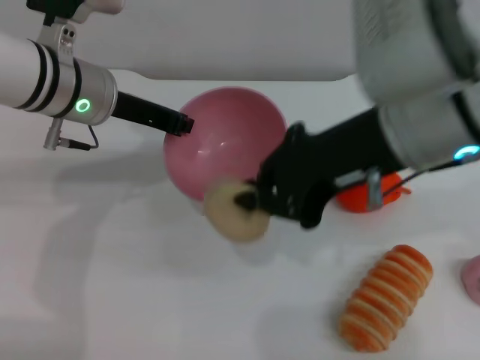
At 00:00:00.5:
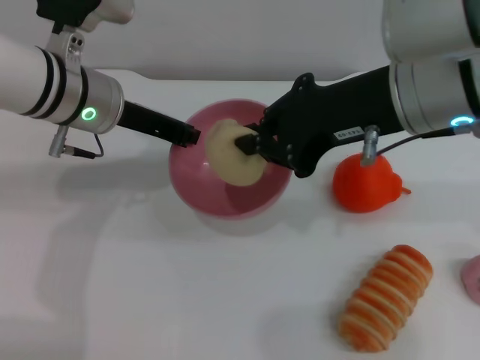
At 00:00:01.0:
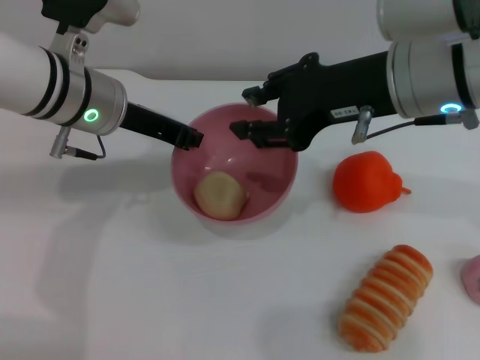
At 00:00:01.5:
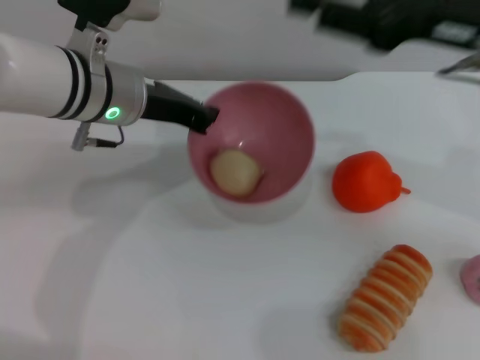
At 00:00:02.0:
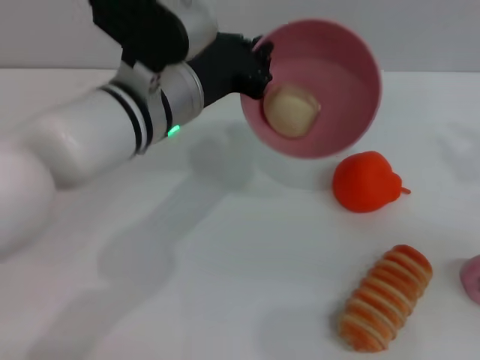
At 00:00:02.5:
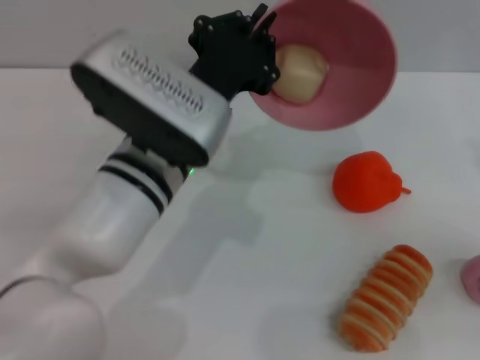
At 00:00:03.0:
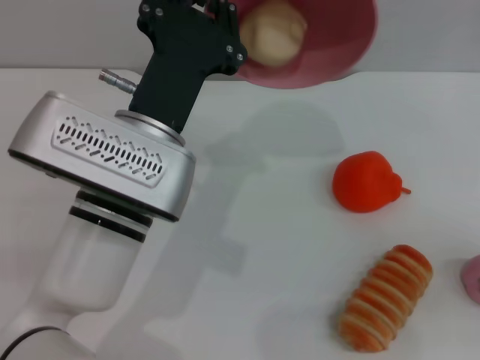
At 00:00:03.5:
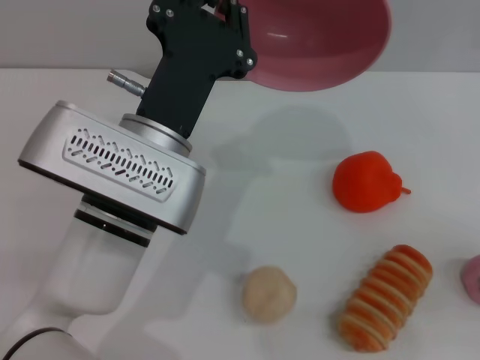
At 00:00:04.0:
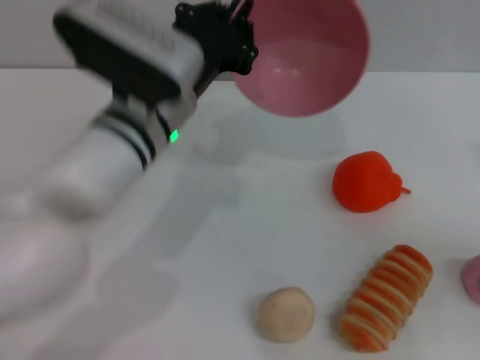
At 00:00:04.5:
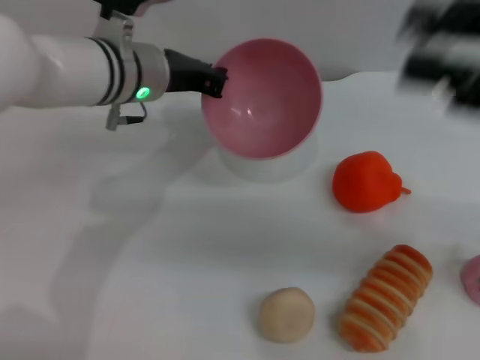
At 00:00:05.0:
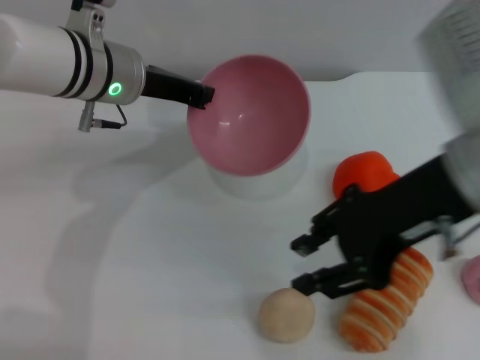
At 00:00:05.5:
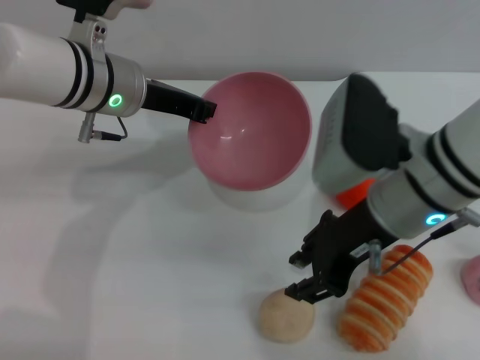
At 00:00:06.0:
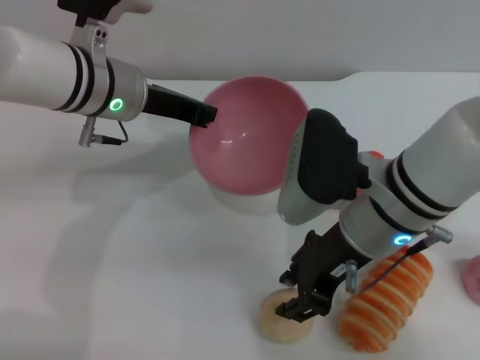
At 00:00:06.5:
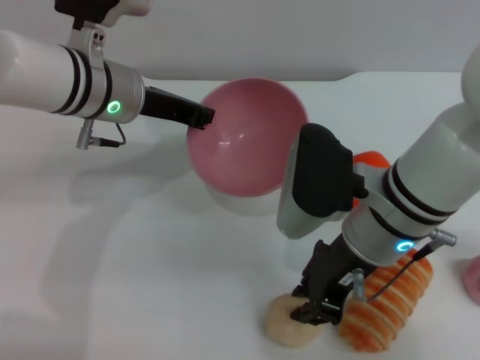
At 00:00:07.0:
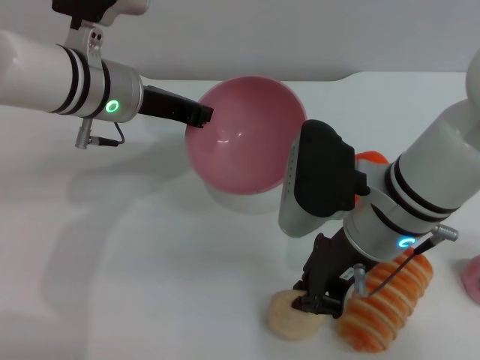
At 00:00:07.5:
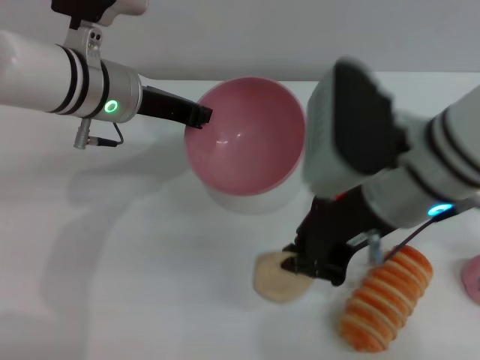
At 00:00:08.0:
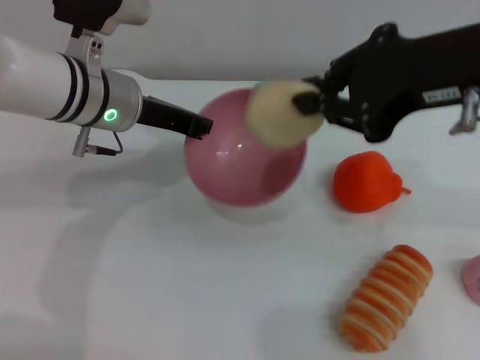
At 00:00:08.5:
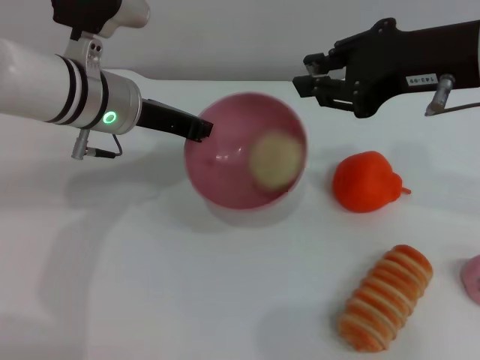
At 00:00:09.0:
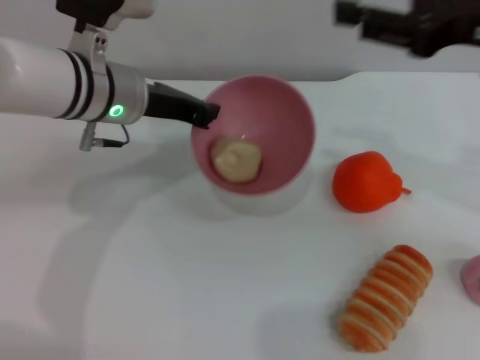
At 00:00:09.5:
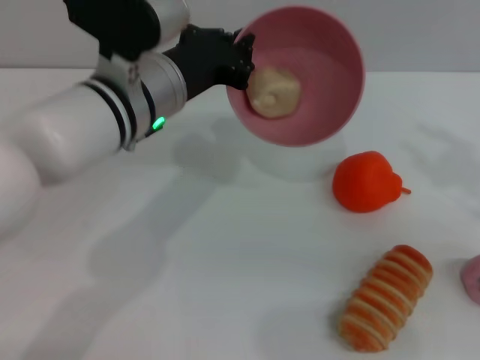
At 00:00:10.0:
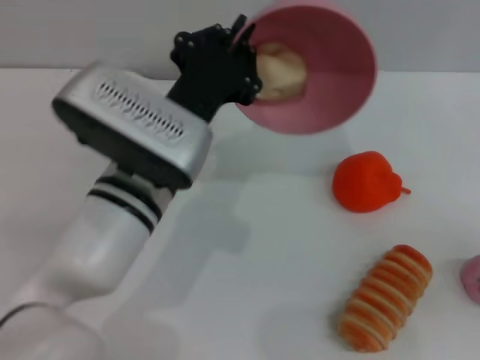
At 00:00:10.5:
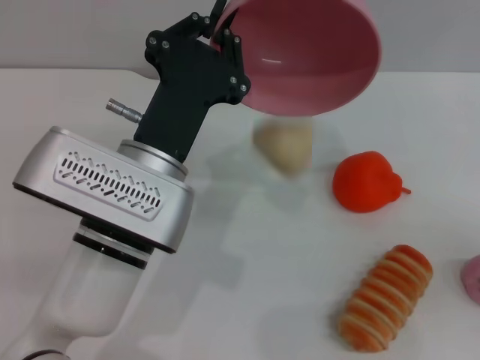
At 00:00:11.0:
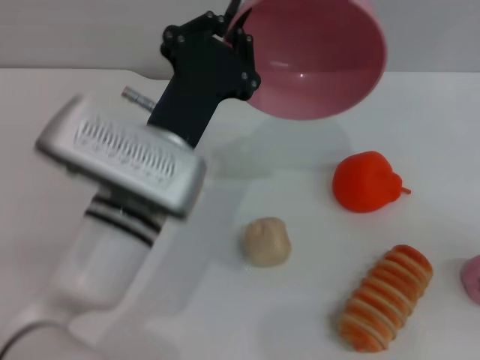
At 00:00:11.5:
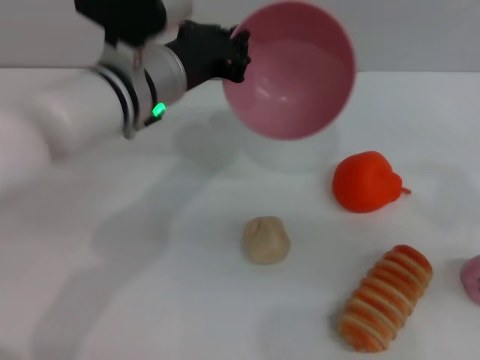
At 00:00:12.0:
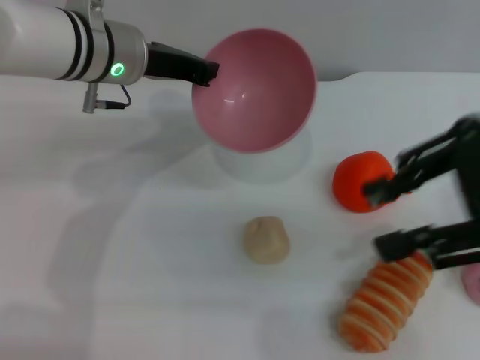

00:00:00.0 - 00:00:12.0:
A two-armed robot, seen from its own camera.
Task of the whole recording: put the egg yolk pastry into the pink bowl and pour it out repeatedly.
Step, 00:00:00.0 - 00:00:01.0: Place the egg yolk pastry into the bowl.
Step, 00:00:01.5 - 00:00:03.5: Pour the egg yolk pastry out of bowl.
Step, 00:00:04.0 - 00:00:07.5: Pick up the egg yolk pastry with the right gripper.
Step, 00:00:08.0 - 00:00:08.5: Place the egg yolk pastry into the bowl.
Step, 00:00:09.0 - 00:00:10.5: Pour the egg yolk pastry out of bowl.
00:00:00.0 - 00:00:02.0: The left gripper travels to the right and backward by some 10 cm, while the right gripper travels to the right by approximately 20 cm, and opens.
00:00:02.0 - 00:00:04.0: The left gripper reaches some 10 cm backward, then returns.
00:00:04.0 - 00:00:06.0: The left gripper moves forward and to the left, about 10 cm, while the right gripper travels to the left by approximately 25 cm.
00:00:06.0 - 00:00:08.0: The right gripper travels upward and to the right by some 15 cm, and closes its fingers.
00:00:08.0 - 00:00:10.0: The left gripper shifts approximately 15 cm backward and to the right; the right gripper heads to the right and downward, covering about 20 cm, and opens its fingers.
00:00:10.0 - 00:00:12.0: The right gripper shifts roughly 15 cm to the left and upward; the left gripper heads forward, to the left and upward, covering some 15 cm.

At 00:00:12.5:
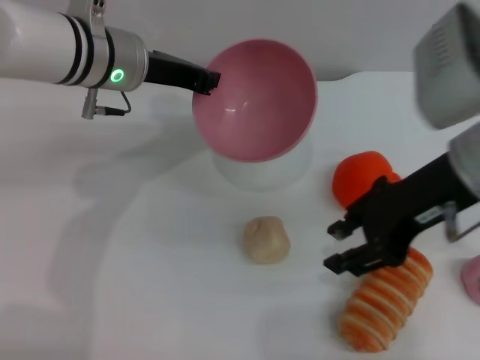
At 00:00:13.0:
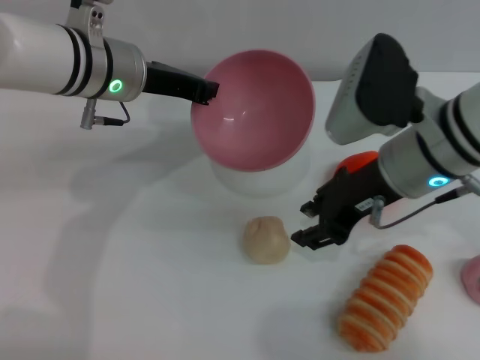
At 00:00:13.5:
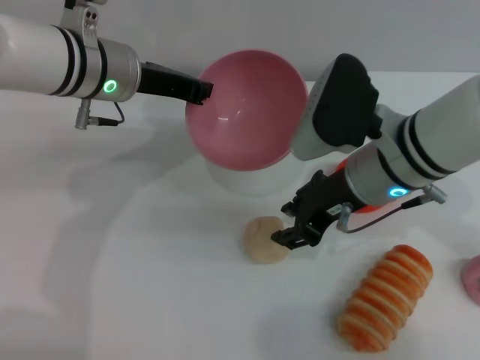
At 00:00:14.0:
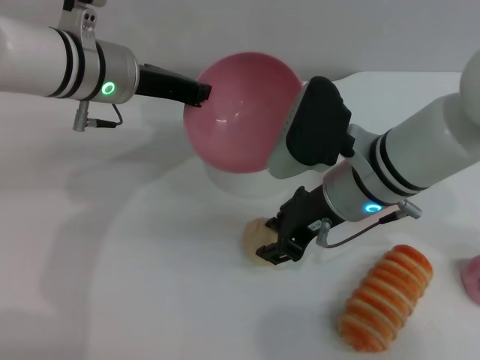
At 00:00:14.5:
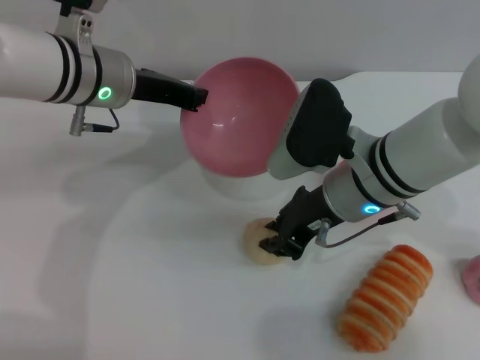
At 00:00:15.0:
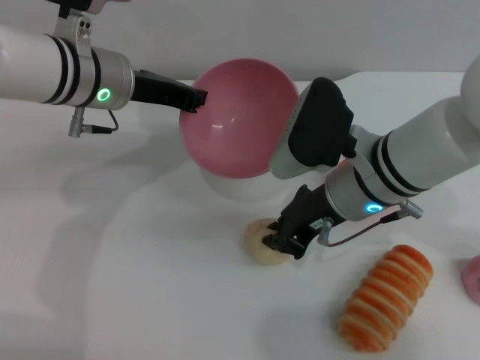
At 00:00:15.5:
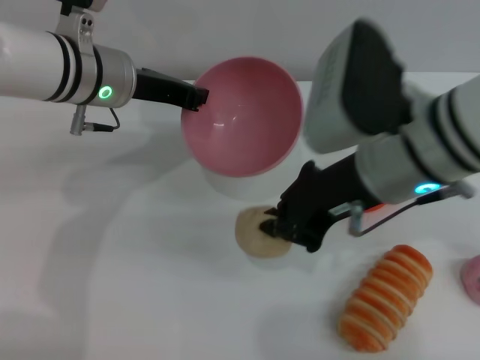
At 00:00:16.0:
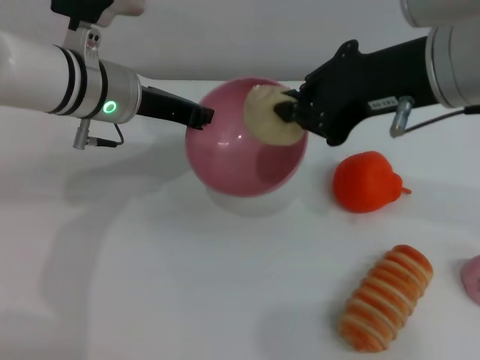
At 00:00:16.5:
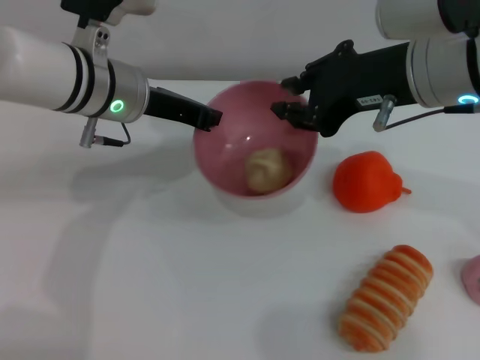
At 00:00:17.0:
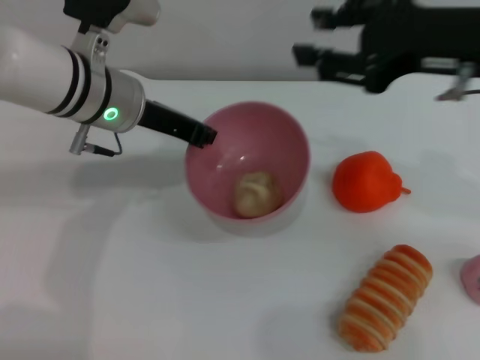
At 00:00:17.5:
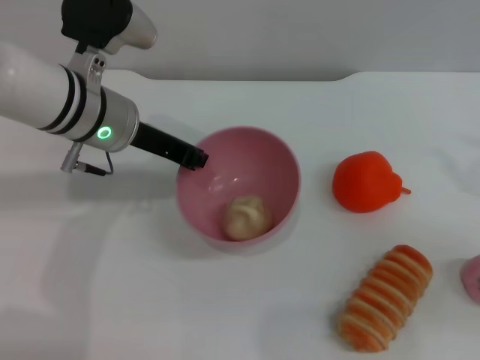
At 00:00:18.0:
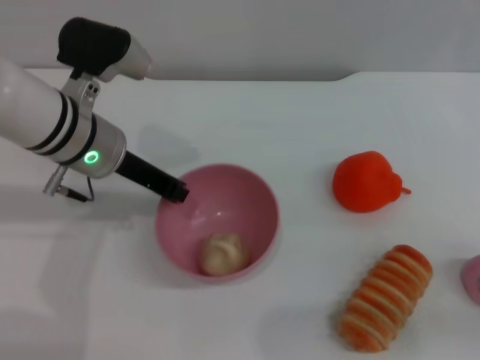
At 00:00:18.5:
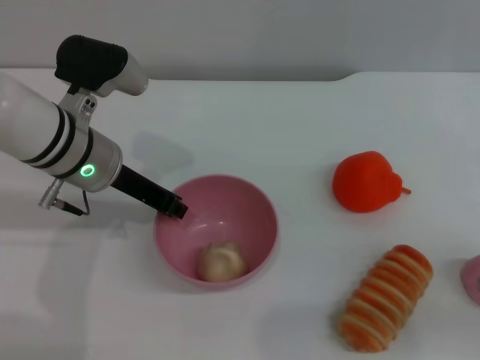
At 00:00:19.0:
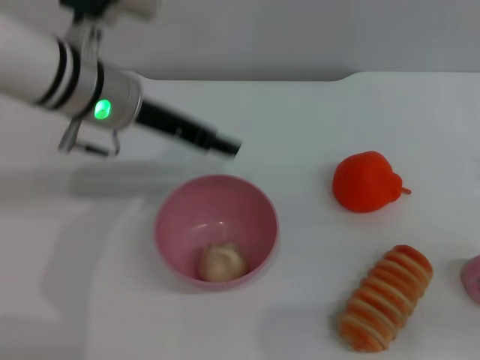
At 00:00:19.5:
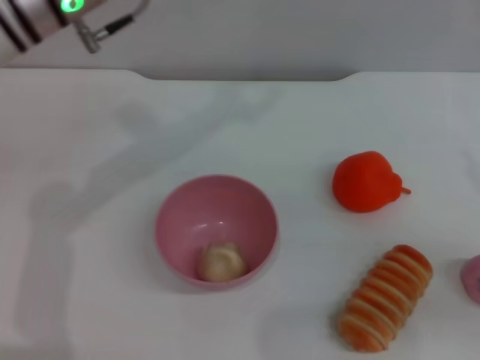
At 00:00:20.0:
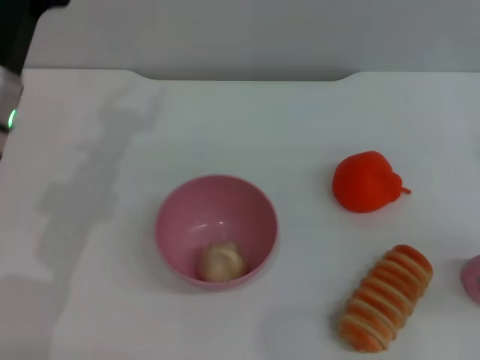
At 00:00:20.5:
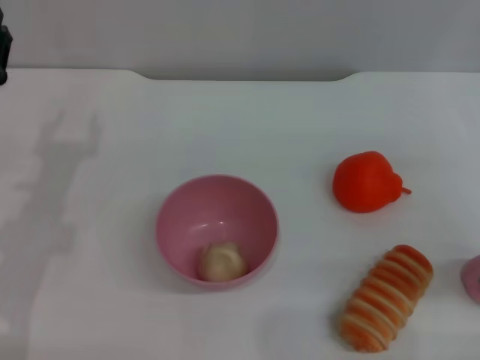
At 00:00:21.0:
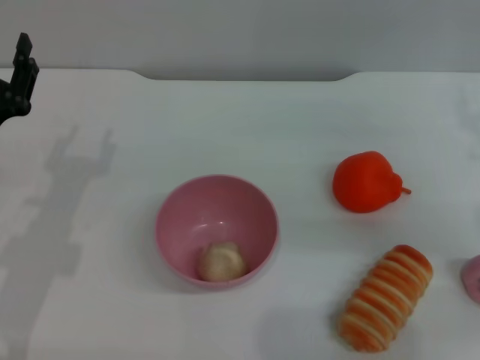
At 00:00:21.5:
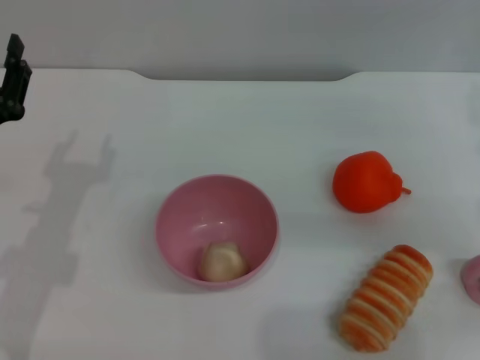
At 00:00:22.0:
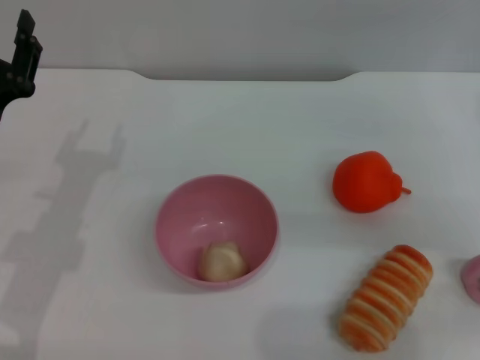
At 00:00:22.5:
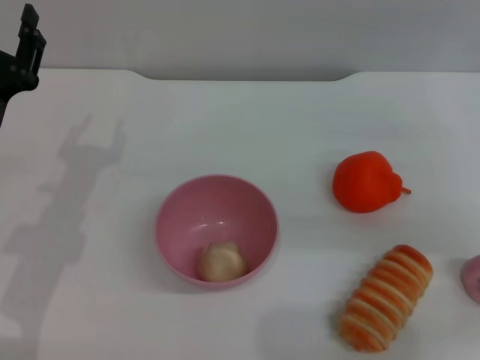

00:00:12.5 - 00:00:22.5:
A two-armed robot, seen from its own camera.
Task of the whole recording: put the egg yolk pastry into the pink bowl and pour it out repeatedly.
Step, 00:00:12.5 - 00:00:15.0: Pick up the egg yolk pastry with the right gripper.
Step, 00:00:16.0 - 00:00:16.5: Place the egg yolk pastry into the bowl.
Step, 00:00:17.0 - 00:00:19.0: Place the bowl on the table.
00:00:12.5 - 00:00:14.5: The right gripper moves downward and to the left, approximately 10 cm.
00:00:14.5 - 00:00:16.5: The right gripper heads upward, covering some 15 cm.
00:00:16.5 - 00:00:18.5: The right gripper moves to the right and backward, roughly 20 cm, and opens up, while the left gripper shifts by about 5 cm.
00:00:18.5 - 00:00:20.5: The left gripper heads to the left and backward, covering some 15 cm, travels upward and back again, approximately 10 cm each way, and opens.
